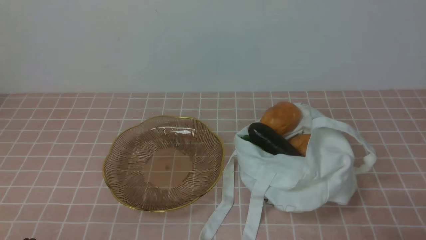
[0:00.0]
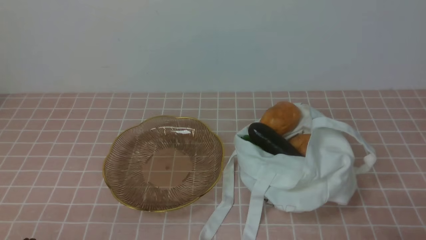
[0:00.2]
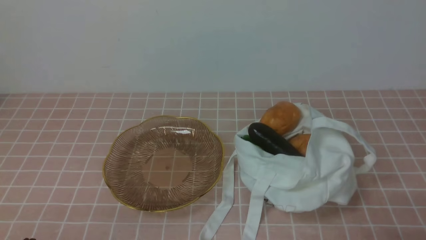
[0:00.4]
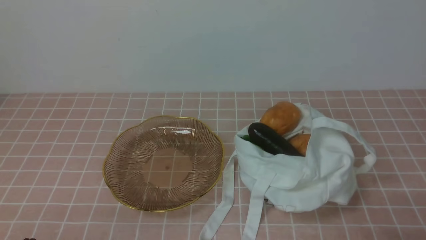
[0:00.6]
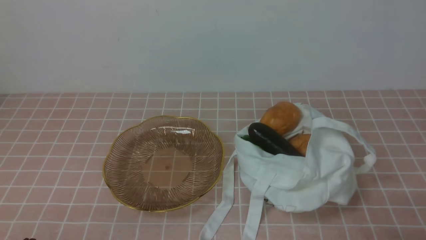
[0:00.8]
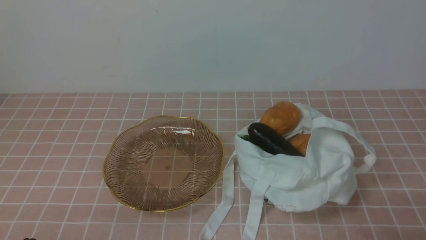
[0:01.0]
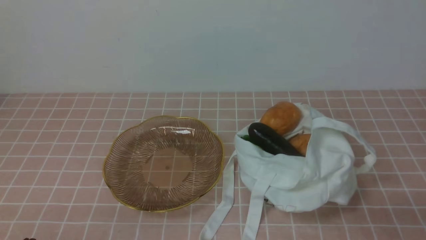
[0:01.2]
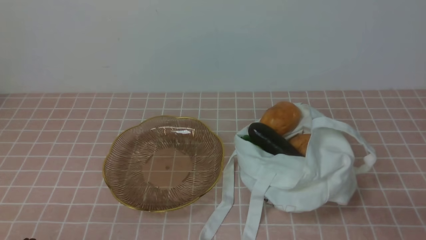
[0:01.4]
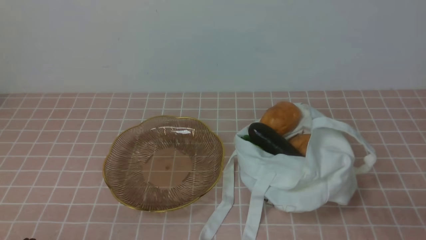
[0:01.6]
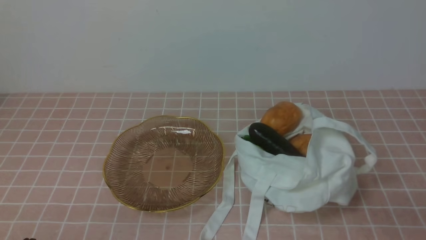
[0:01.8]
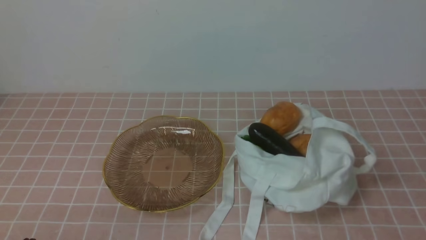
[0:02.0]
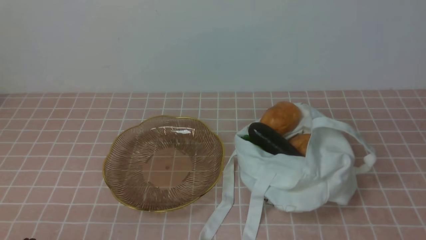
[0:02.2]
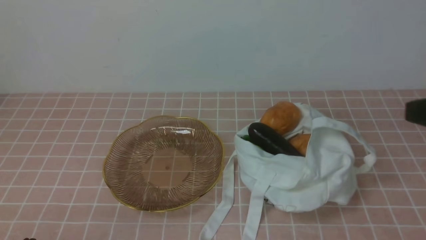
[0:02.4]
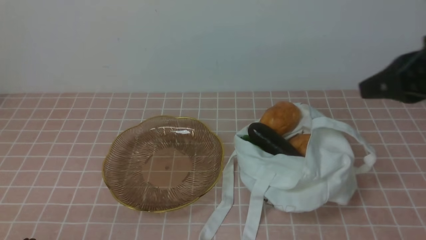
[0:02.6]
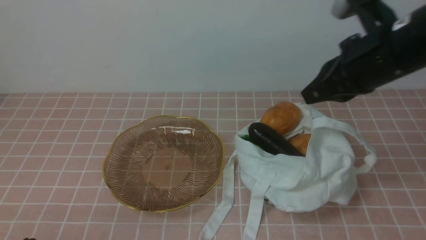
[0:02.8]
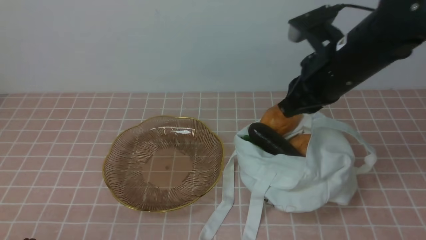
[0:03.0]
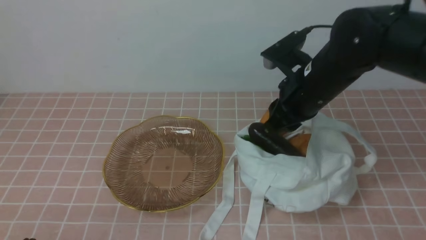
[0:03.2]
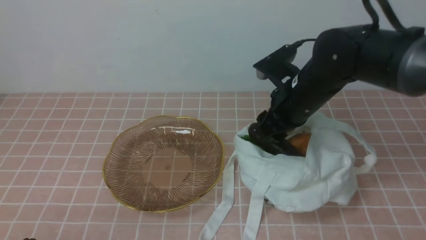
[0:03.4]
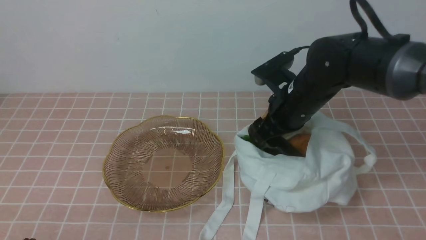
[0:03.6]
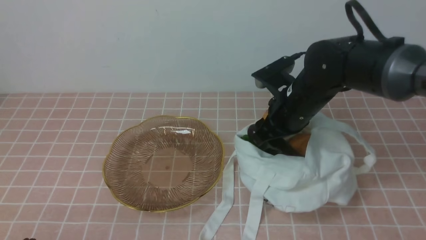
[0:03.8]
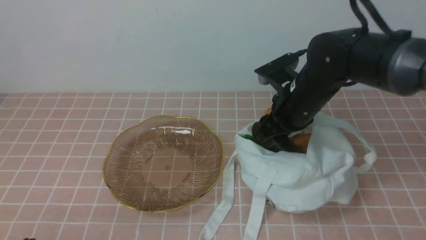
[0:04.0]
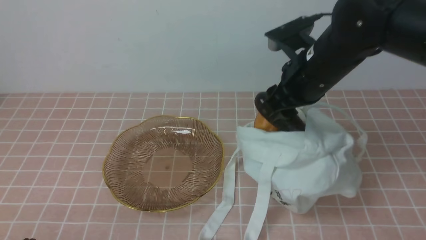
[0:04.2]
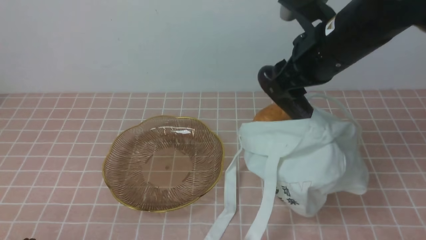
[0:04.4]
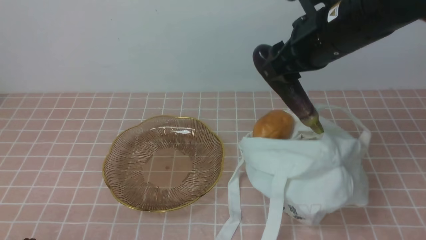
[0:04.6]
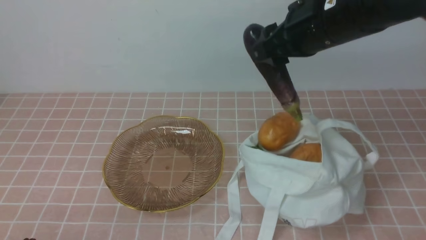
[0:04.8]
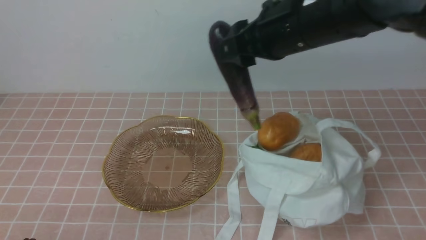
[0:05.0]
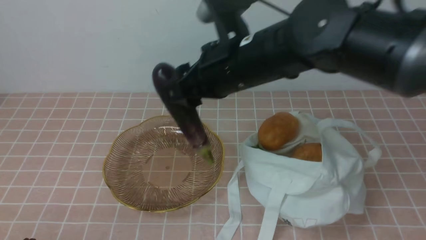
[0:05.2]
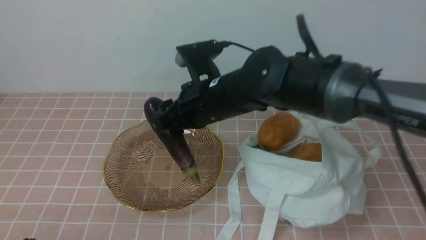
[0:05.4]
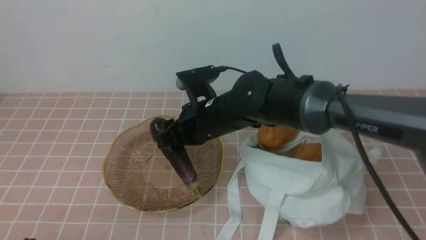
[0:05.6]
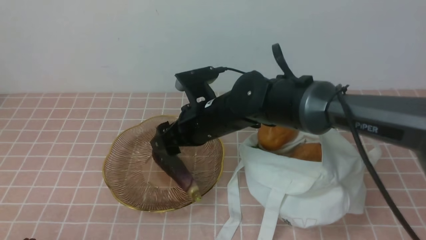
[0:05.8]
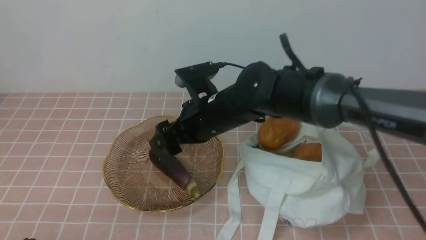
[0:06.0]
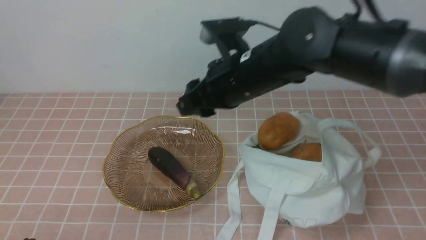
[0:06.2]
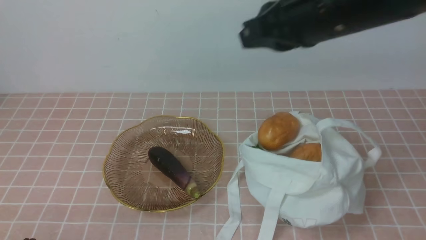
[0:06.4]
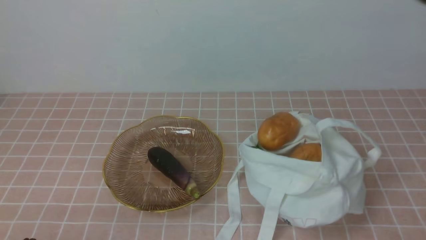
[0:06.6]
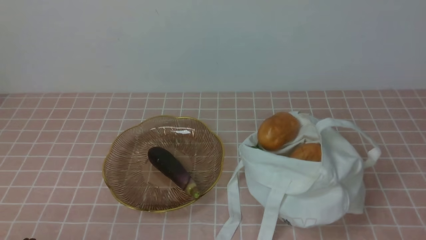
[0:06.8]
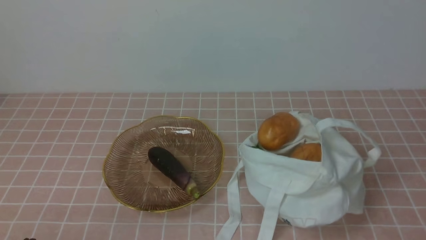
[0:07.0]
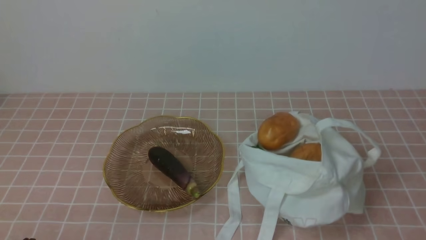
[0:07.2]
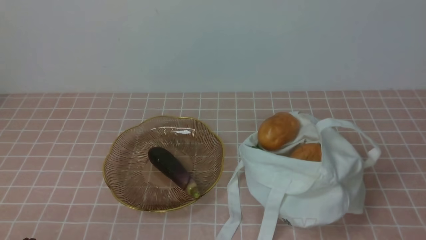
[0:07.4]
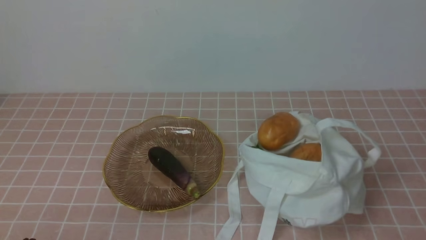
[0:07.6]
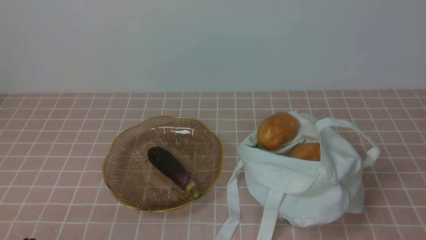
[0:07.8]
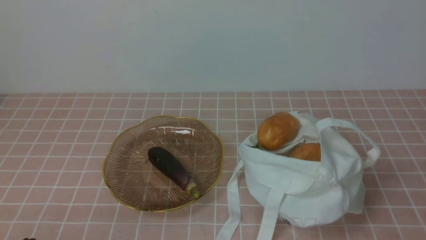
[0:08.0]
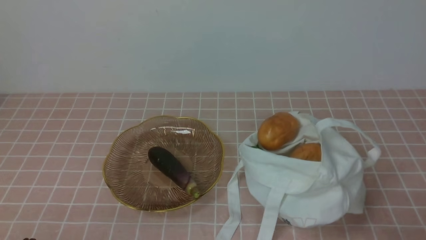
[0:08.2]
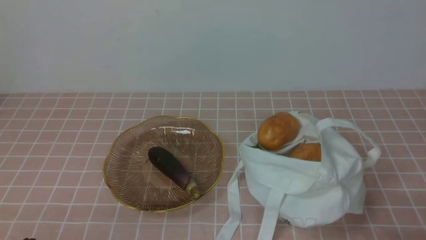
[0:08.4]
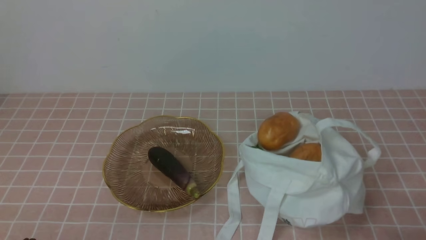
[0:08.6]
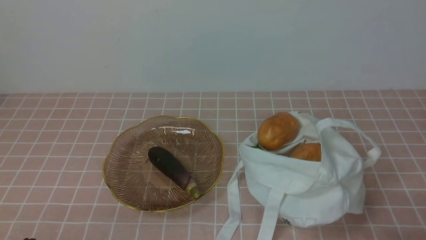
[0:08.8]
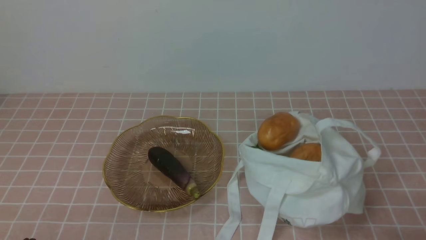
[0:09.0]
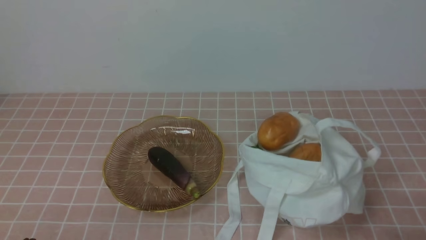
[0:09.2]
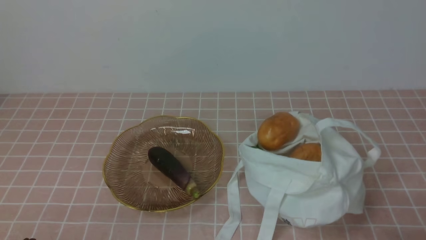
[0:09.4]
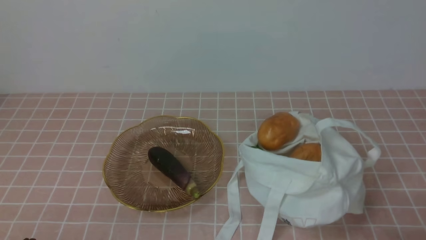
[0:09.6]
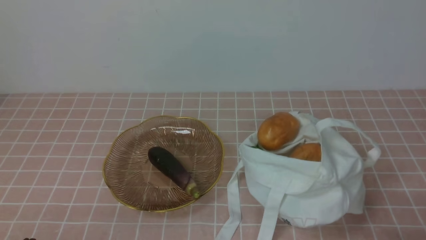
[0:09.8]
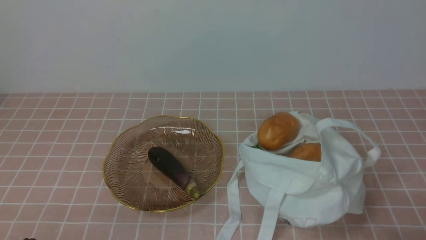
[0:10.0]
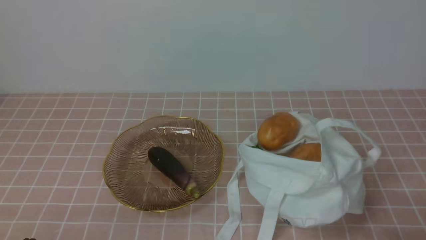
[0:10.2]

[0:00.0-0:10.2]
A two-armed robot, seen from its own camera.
Task of the whole recording: take vegetables from bag on pink coffee tablecloth place on plate.
Step, 0:00.0 to 0:03.8: Grasp the eggplant with right gripper.
Step, 0:04.0 to 0:06.2: Place the eggplant on the plate with right gripper.
0:01.4 to 0:03.0: The right gripper is displaced forward, to the left and upward by approximately 30 cm.
0:03.0 to 0:04.4: The right gripper travels downward and back again, approximately 10 cm each way, and opens up.
0:04.4 to 0:05.8: The right gripper heads to the left and downward, covering some 20 cm.
0:05.8 to 0:07.2: The right gripper moves backward and to the right, approximately 50 cm, and closes its fingers.
0:08.8 to 0:10.2: Neither gripper changes place.
